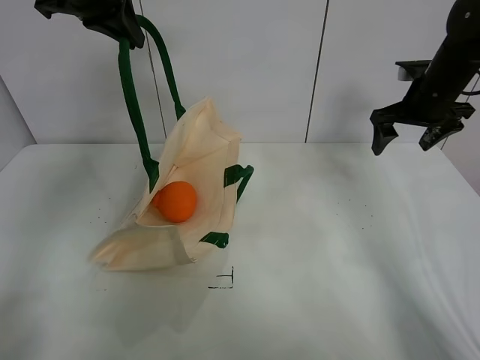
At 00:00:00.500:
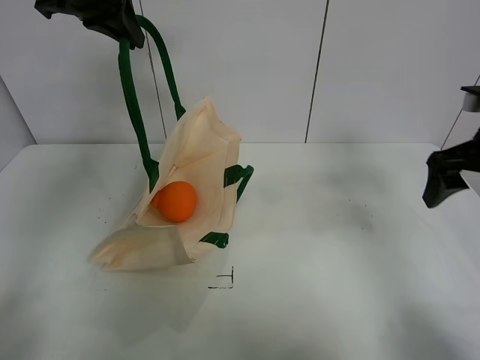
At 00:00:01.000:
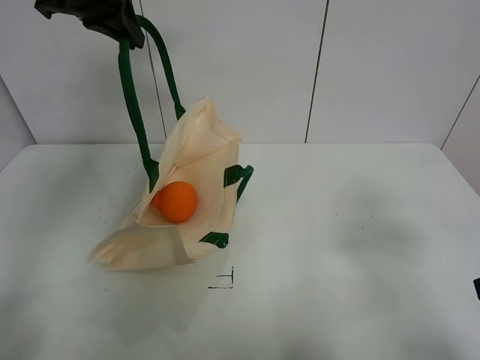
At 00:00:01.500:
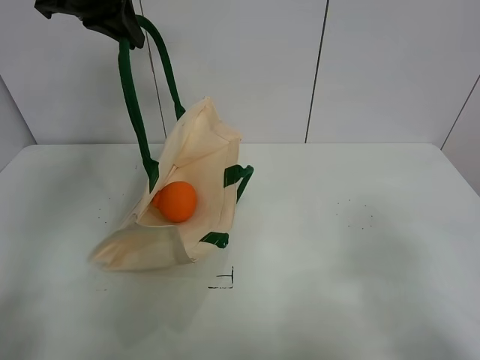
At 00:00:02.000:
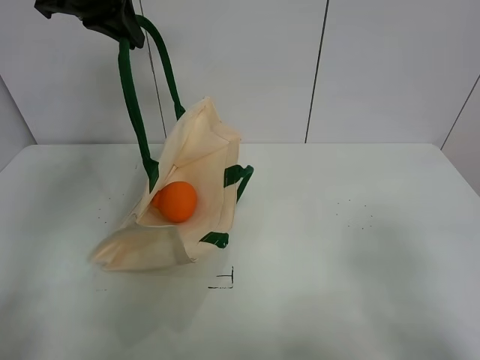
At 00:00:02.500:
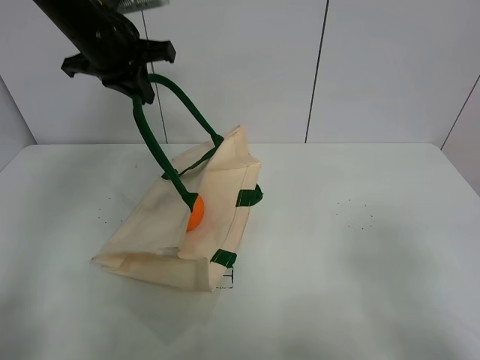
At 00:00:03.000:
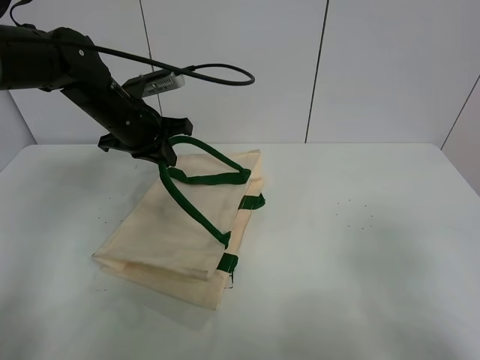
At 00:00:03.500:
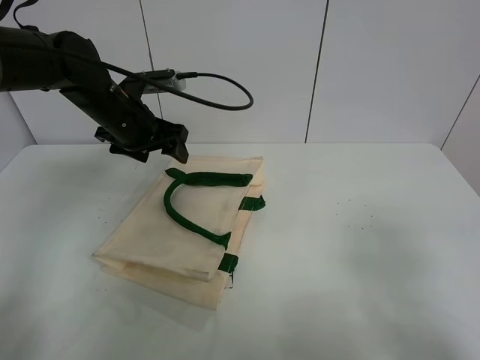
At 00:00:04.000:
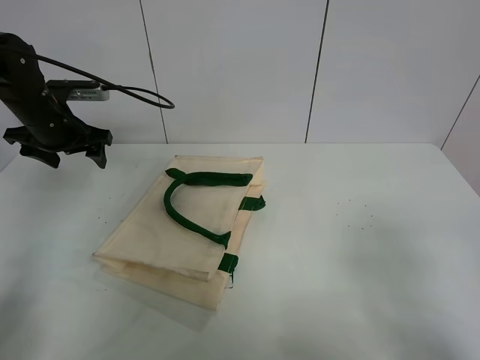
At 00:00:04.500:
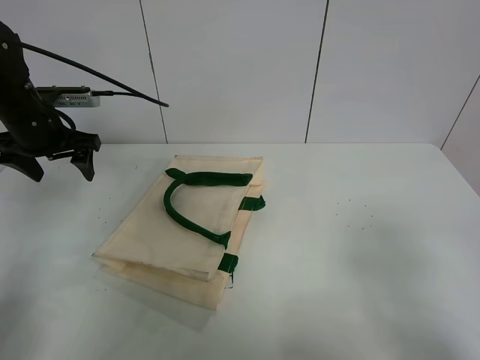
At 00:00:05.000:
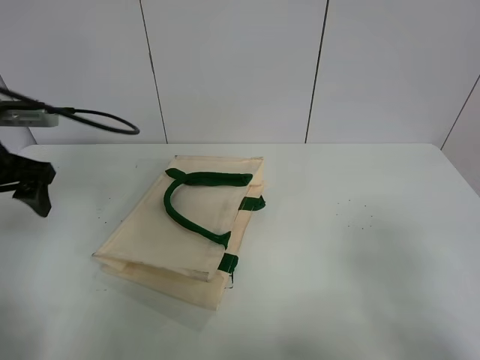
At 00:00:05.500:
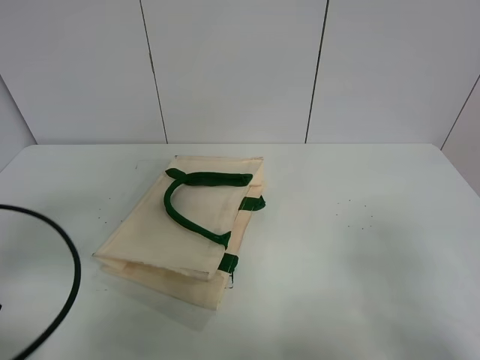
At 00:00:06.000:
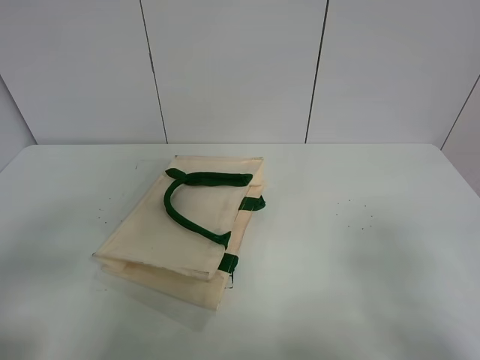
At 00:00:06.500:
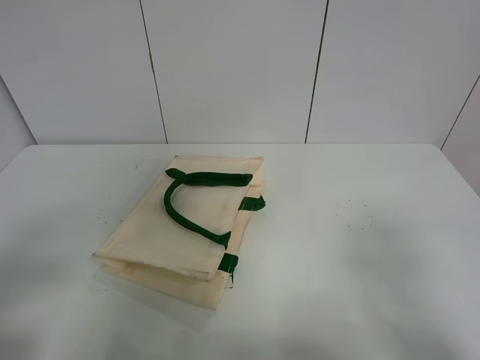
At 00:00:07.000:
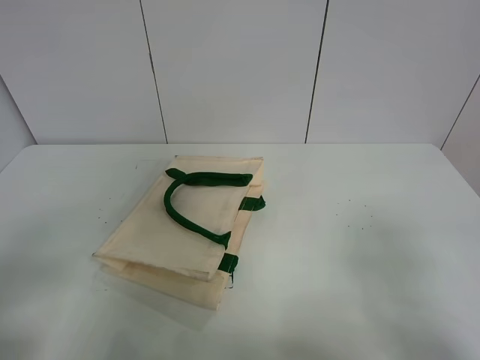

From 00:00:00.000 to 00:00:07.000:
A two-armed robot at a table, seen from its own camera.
Task of the whole recording: open the white linen bag and put the orange in the bag.
Step, from 00:00:00.000 to 00:00:03.000: Put down the handbag with left gripper.
From 00:00:00.000 to 00:00:02.000: The right gripper goes about 40 cm backward.
From 00:00:02.000 to 00:00:03.500: The left gripper is displaced downward by about 20 cm, and opens its fingers.
From 00:00:03.500 to 00:00:05.000: The left gripper heads backward and to the left, covering roughly 20 cm.
From 00:00:05.000 to 00:00:07.000: The left gripper shifts approximately 25 cm backward.
